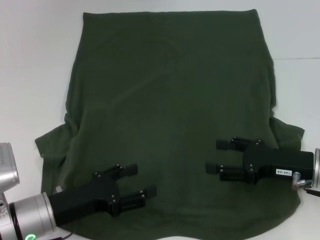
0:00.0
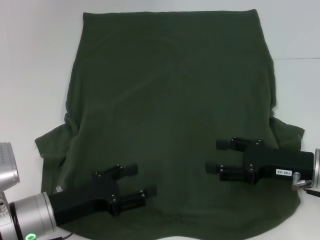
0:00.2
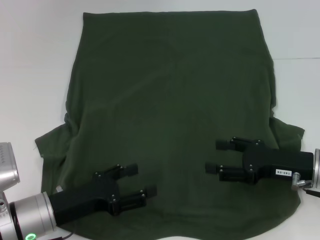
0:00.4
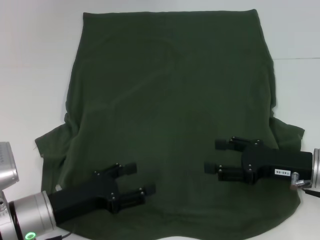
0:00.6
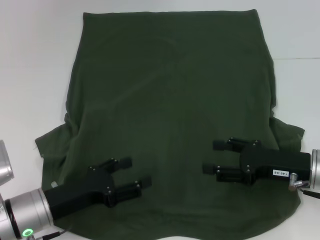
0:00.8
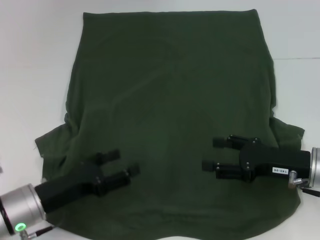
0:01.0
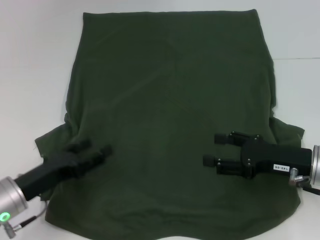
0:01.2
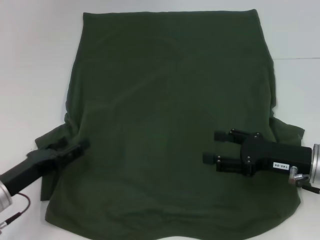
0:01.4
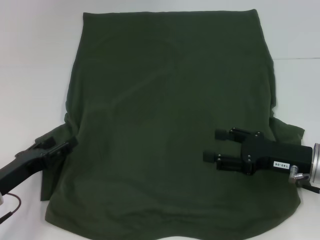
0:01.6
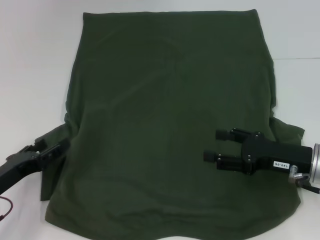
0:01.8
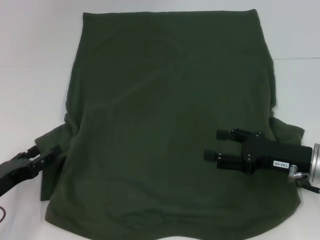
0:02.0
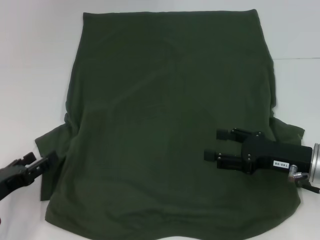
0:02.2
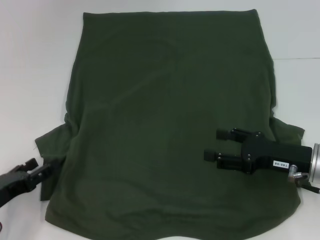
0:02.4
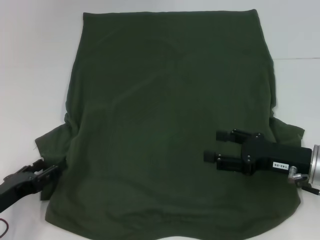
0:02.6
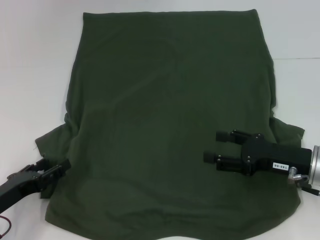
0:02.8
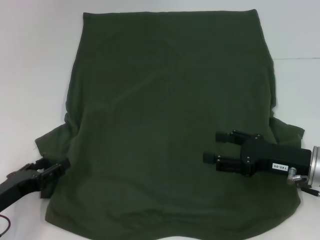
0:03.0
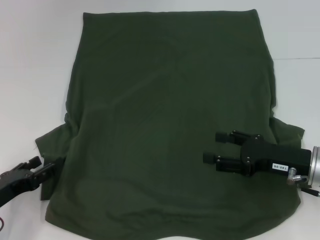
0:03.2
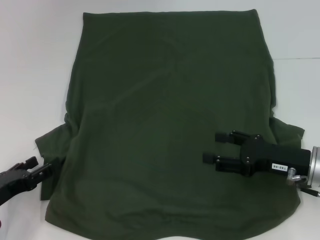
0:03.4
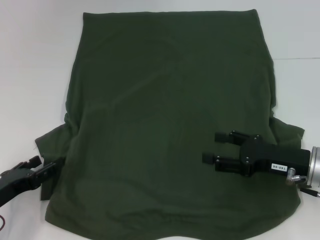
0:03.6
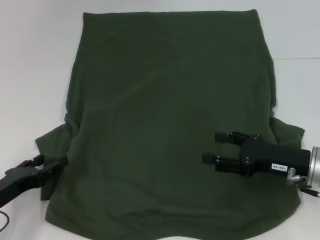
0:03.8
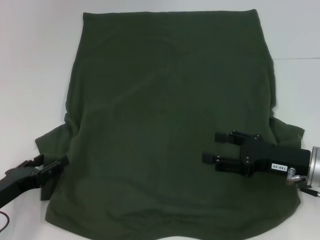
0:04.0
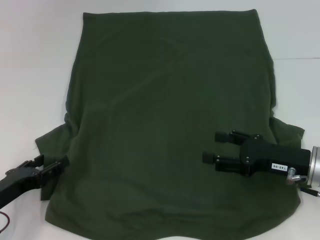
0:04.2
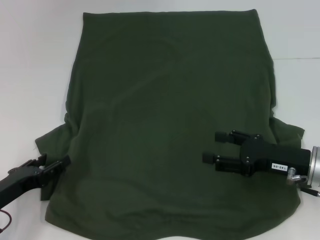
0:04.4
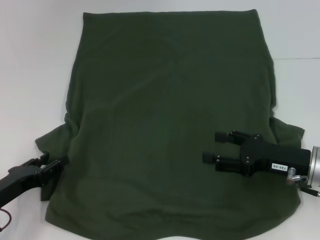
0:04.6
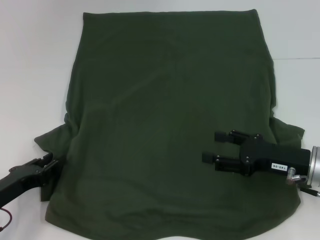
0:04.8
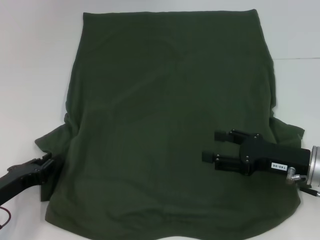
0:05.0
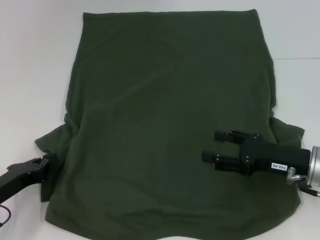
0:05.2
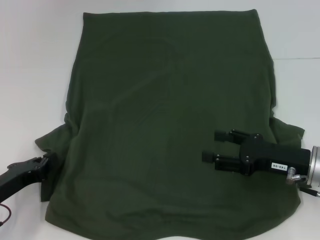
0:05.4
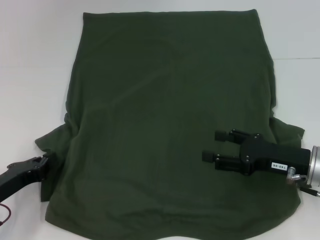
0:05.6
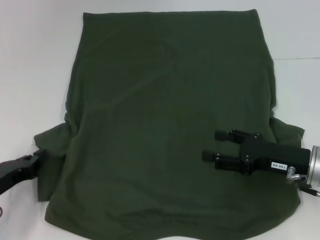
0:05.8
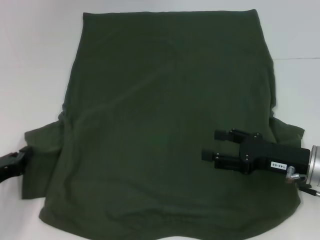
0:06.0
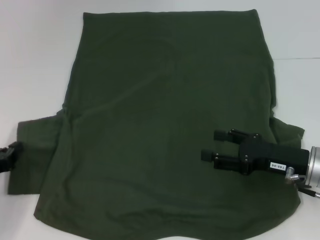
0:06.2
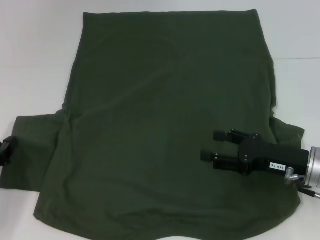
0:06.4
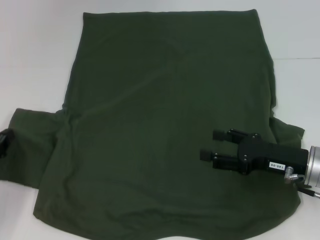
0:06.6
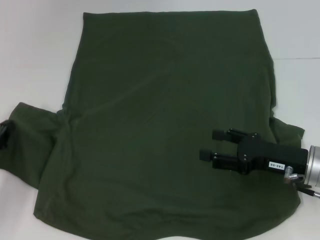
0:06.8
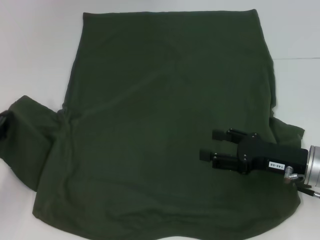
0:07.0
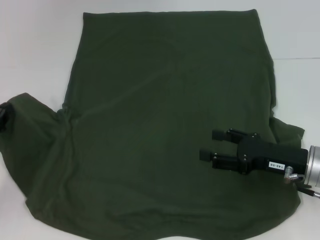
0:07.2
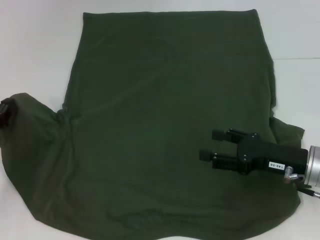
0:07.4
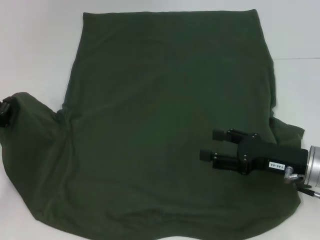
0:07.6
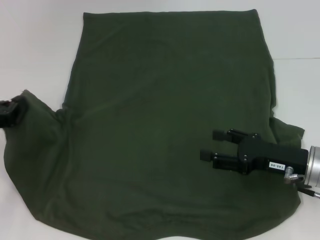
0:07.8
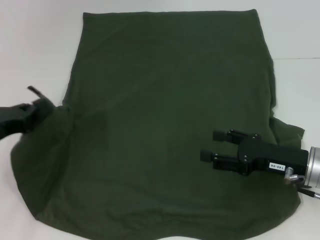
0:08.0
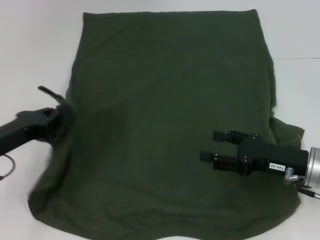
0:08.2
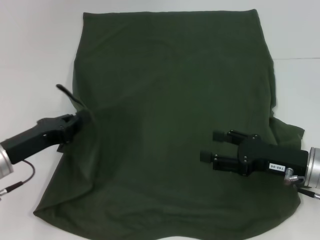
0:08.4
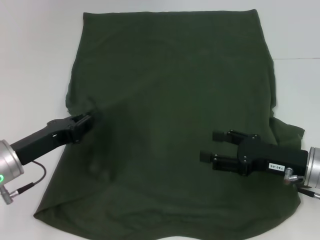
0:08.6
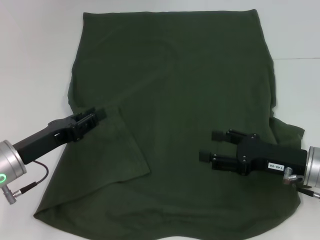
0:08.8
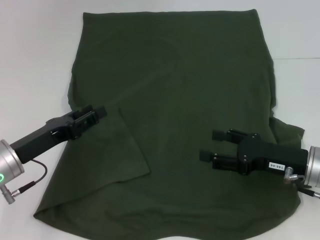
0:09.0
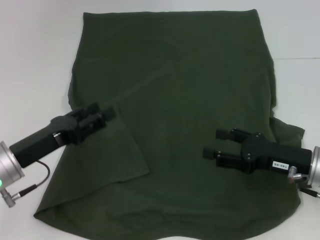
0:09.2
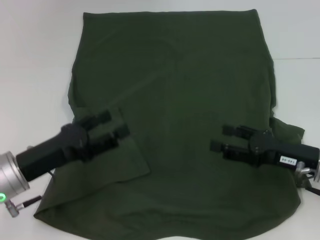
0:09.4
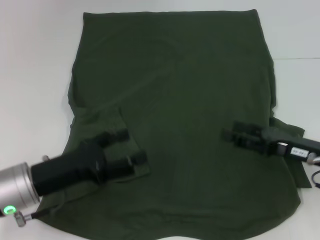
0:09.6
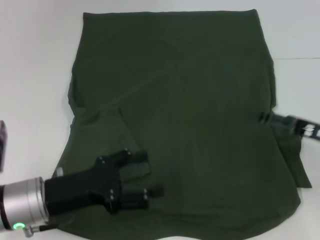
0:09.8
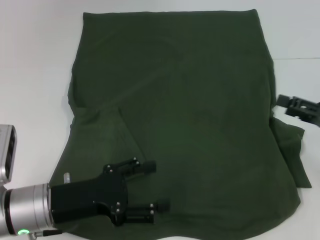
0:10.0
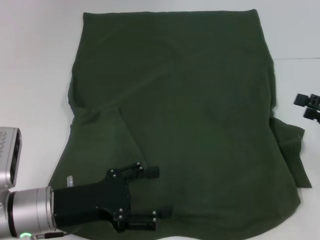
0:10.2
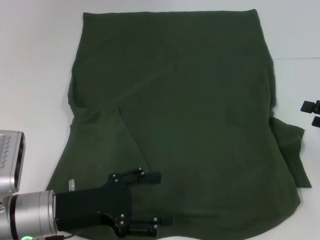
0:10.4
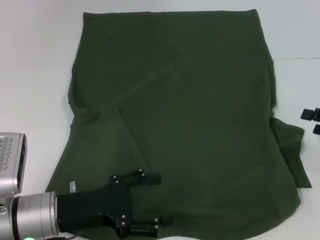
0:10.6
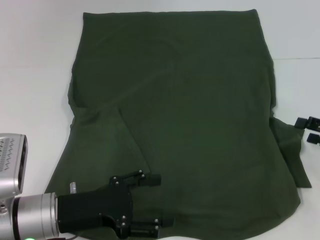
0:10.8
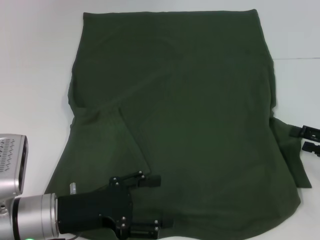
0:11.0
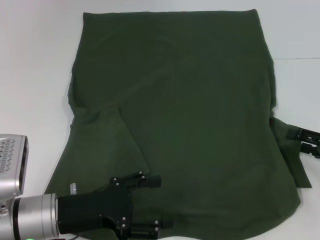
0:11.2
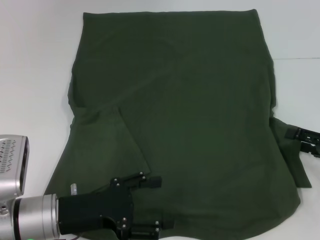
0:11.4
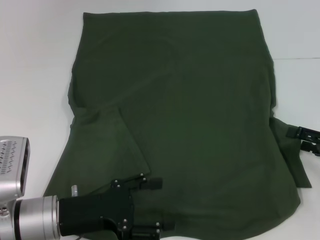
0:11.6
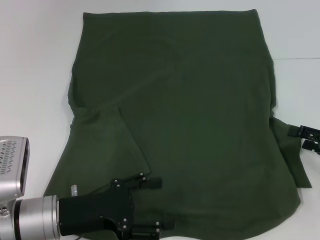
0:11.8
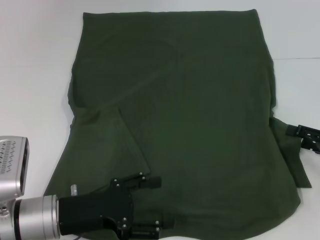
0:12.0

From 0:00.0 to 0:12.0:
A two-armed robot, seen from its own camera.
Step, from 0:00.0 to 0:08.6: Fold the bottom left sleeve with your left hand.
From 0:00.0 to 0:01.6: The left gripper goes some 10 cm to the left.
From 0:01.6 to 0:03.0: The grippers move only a little.
From 0:03.0 to 0:04.4: Both grippers stay about where they are.
From 0:04.4 to 0:06.0: The left gripper closes its fingers.
From 0:06.0 to 0:07.6: The left gripper goes some 10 cm forward and upward.
From 0:07.6 to 0:09.0: The left gripper travels to the right by about 10 cm, and opens.
From 0:09.0 to 0:10.4: The left gripper goes some 5 cm to the right, and opens up. Meanwhile the right gripper shifts about 15 cm to the right.
From 0:10.4 to 0:12.0: There are only small adjustments of the grippers.

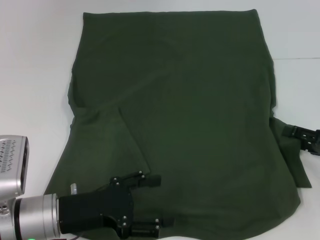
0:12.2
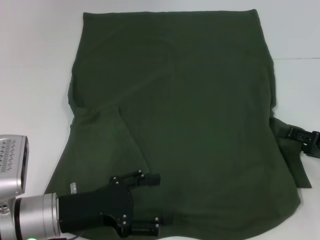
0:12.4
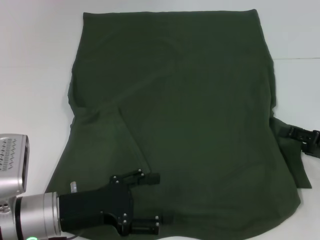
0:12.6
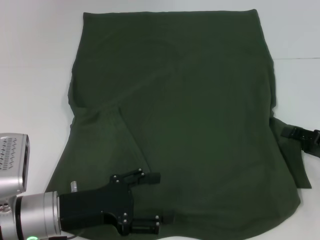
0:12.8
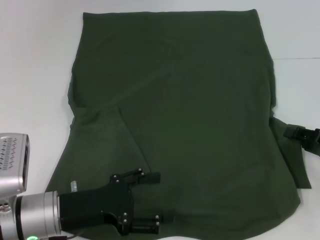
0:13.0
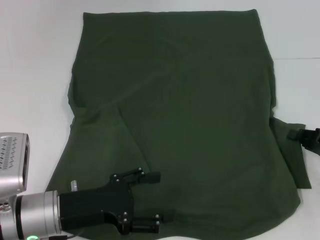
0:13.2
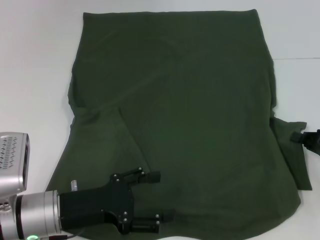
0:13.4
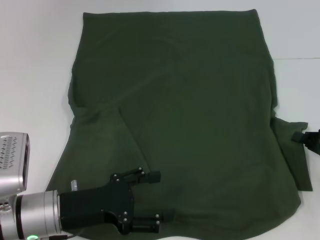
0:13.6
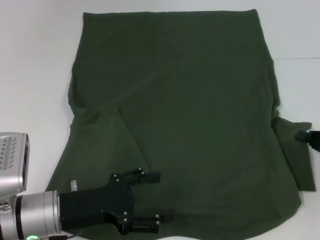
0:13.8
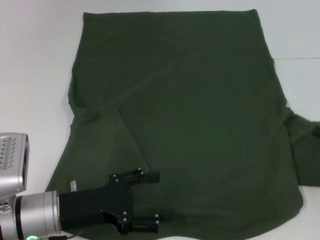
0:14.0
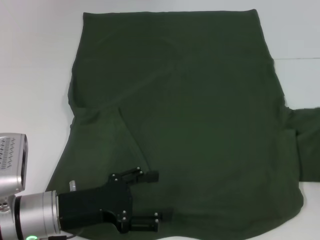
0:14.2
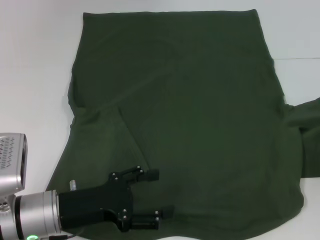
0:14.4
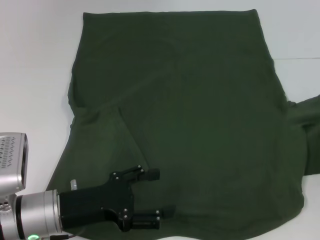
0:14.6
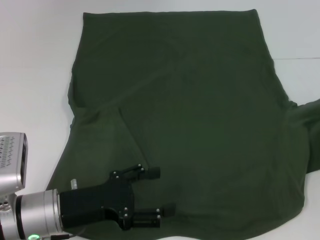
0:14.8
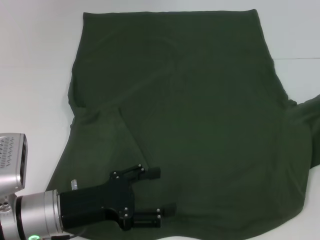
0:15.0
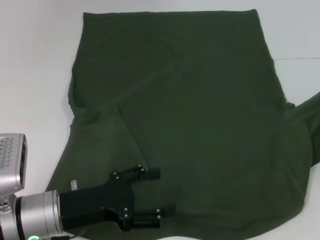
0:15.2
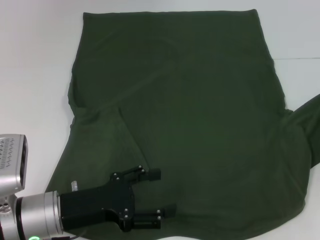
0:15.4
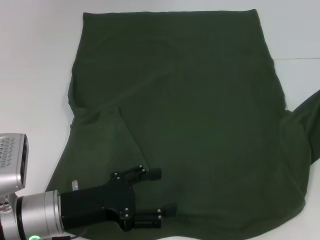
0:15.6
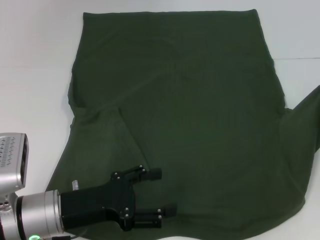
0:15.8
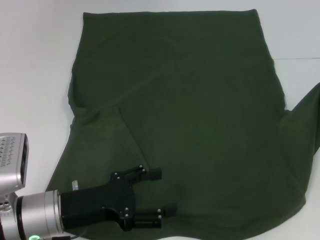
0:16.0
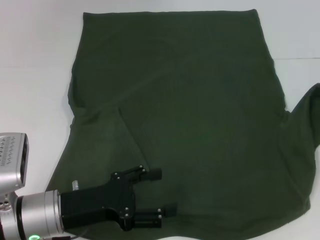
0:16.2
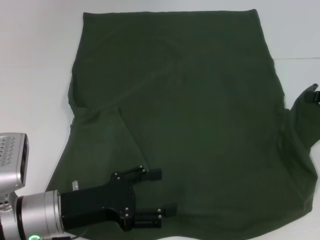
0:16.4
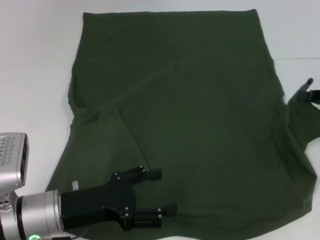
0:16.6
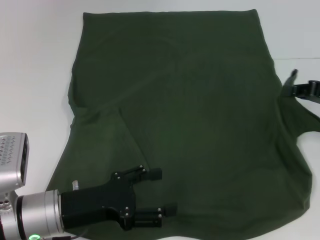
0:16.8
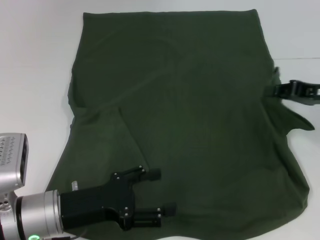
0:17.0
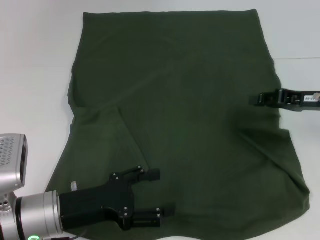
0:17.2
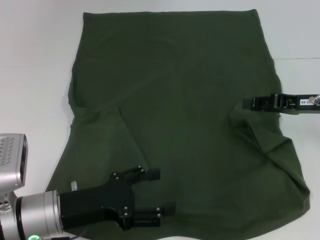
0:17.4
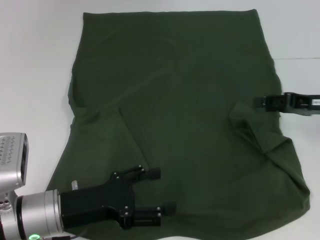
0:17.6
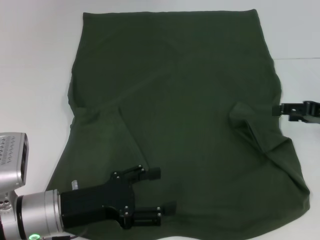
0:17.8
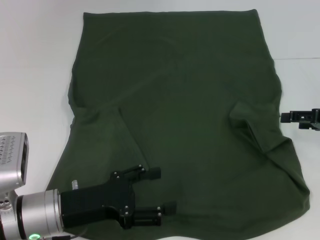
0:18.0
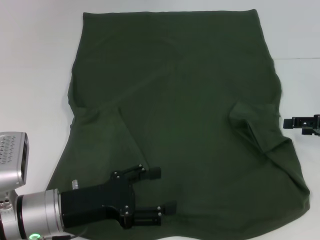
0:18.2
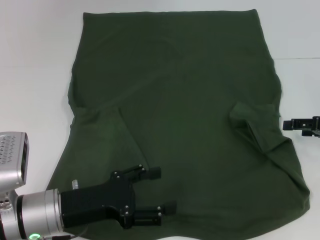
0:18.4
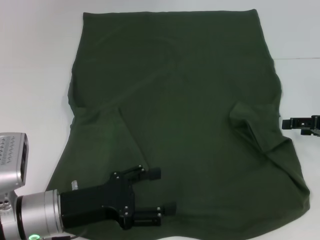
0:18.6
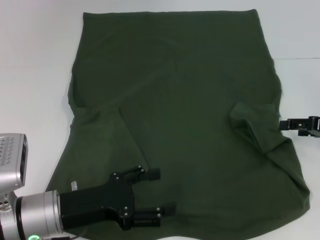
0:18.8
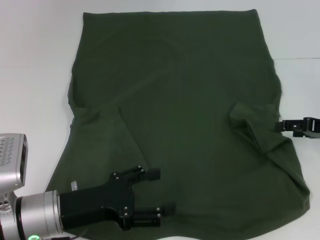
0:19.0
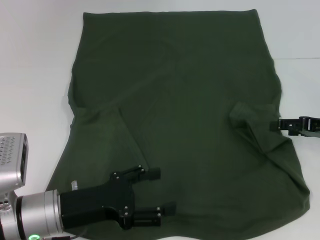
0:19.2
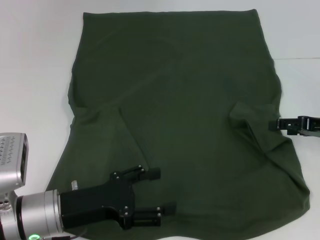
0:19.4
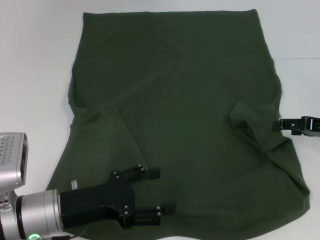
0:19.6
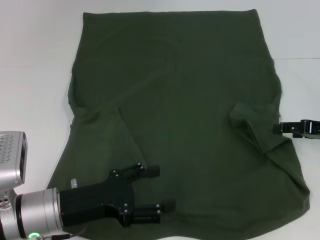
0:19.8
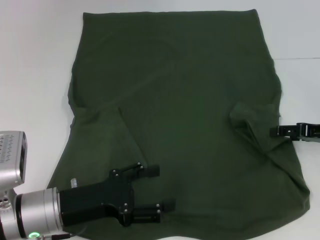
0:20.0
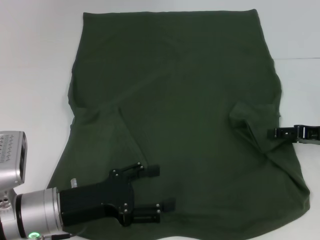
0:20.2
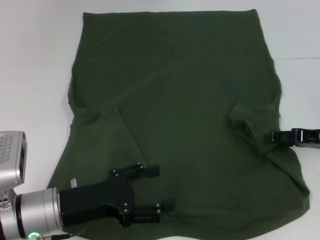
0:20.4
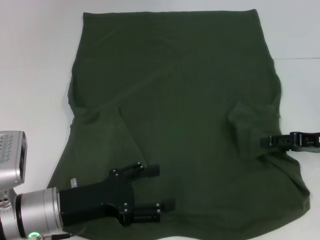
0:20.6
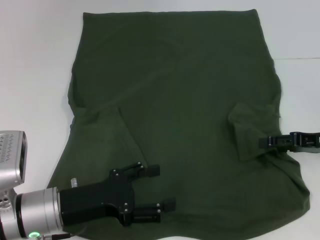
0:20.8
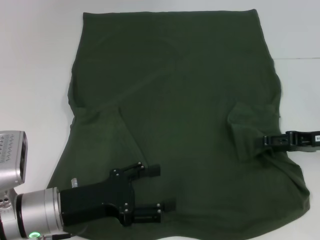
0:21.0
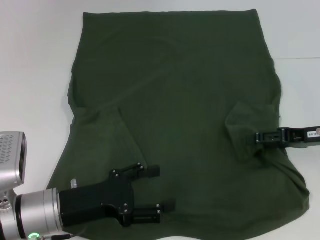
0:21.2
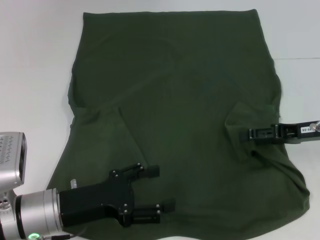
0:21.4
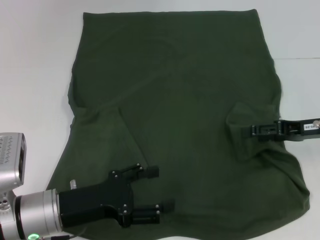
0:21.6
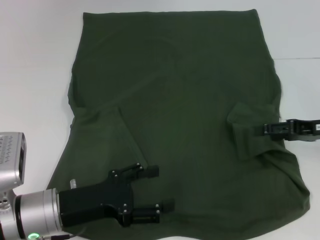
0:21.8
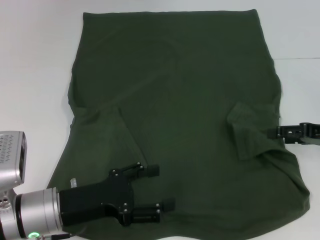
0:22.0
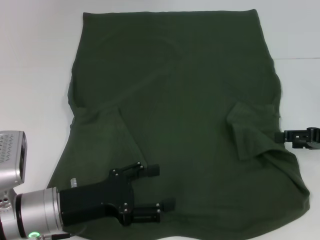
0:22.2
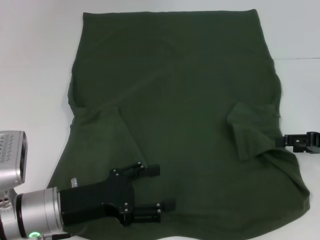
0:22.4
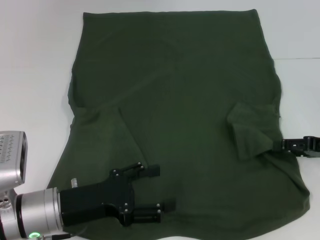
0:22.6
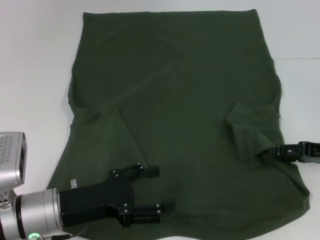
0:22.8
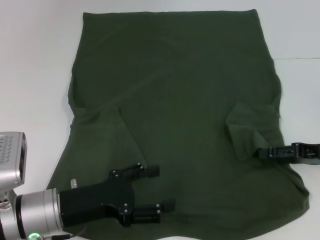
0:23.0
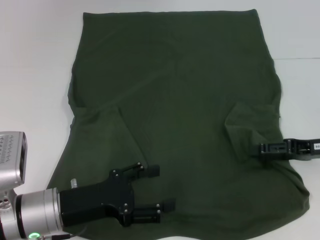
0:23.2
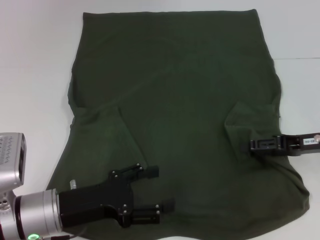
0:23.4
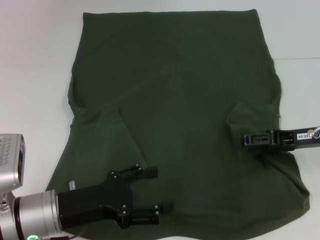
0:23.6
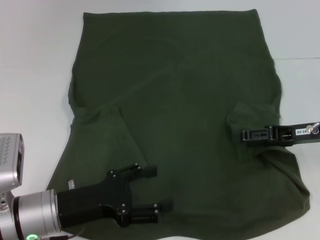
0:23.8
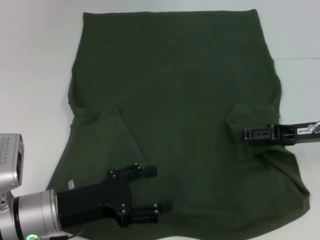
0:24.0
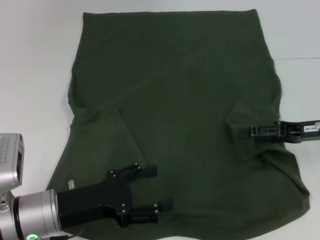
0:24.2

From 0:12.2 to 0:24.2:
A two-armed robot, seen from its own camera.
From 0:12.2 to 0:13.8: The right gripper closes.
From 0:13.8 to 0:15.2: The right gripper shifts about 10 cm upward and to the right.
From 0:15.2 to 0:16.6: The right gripper ends up approximately 5 cm from where it was.
From 0:16.6 to 0:18.2: The right gripper opens up.
From 0:18.2 to 0:21.2: The grippers make only small movements.
From 0:21.2 to 0:22.6: The grippers move only a little.
From 0:22.6 to 0:24.2: The right gripper changes place by some 5 cm.
